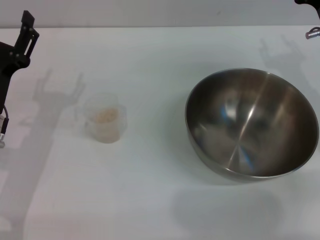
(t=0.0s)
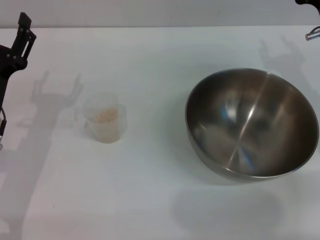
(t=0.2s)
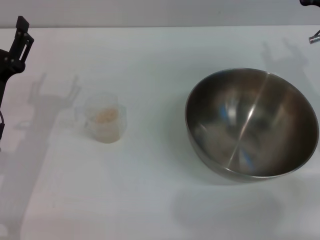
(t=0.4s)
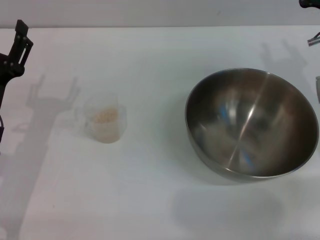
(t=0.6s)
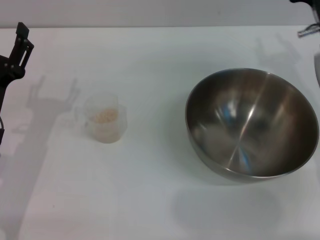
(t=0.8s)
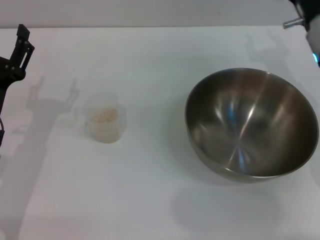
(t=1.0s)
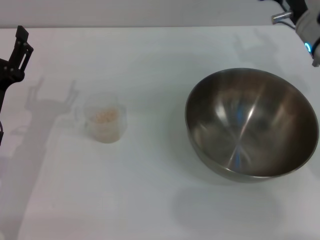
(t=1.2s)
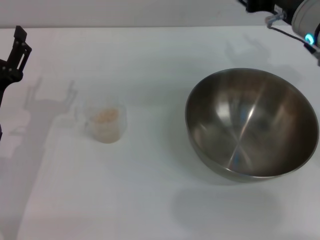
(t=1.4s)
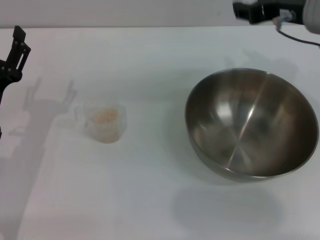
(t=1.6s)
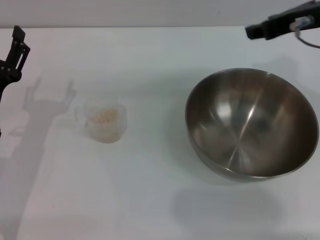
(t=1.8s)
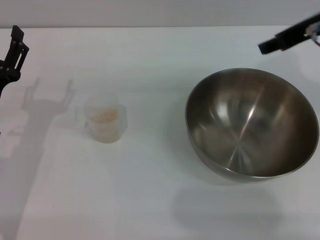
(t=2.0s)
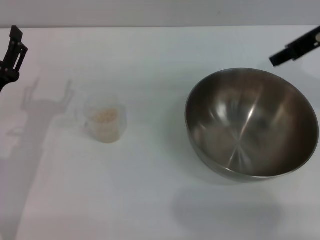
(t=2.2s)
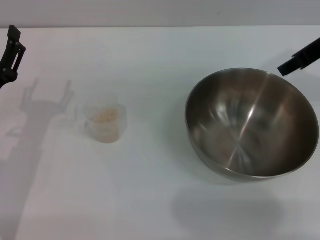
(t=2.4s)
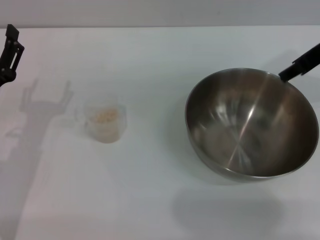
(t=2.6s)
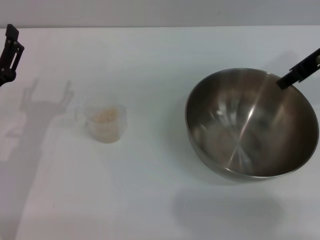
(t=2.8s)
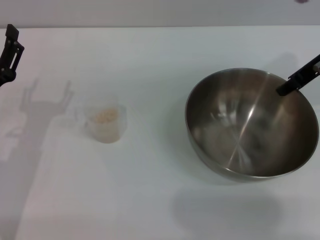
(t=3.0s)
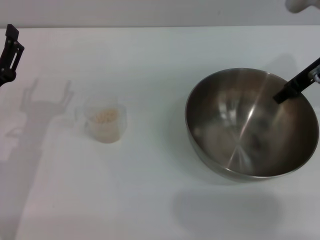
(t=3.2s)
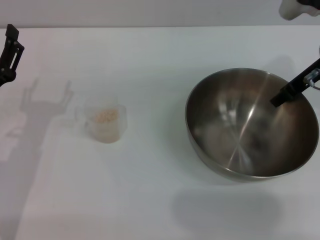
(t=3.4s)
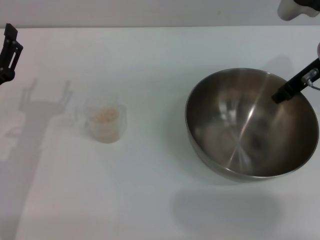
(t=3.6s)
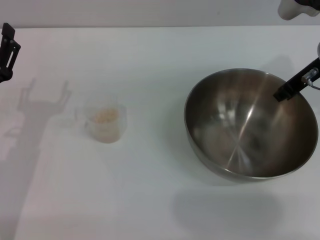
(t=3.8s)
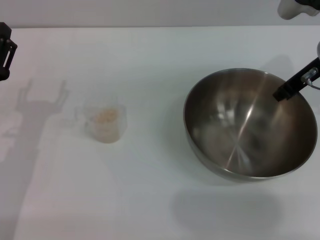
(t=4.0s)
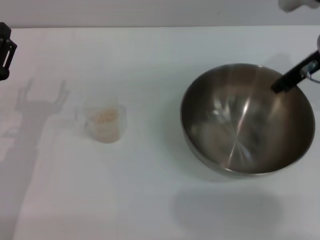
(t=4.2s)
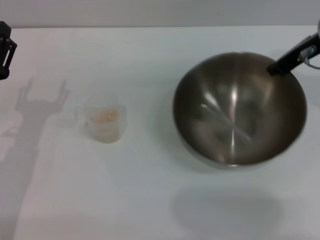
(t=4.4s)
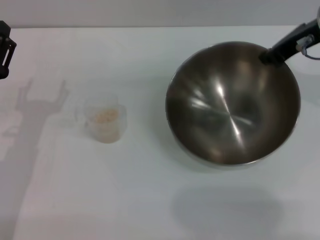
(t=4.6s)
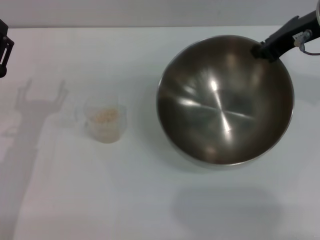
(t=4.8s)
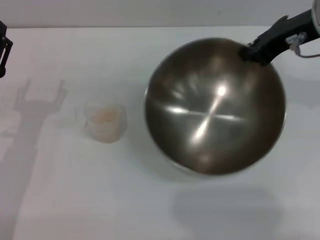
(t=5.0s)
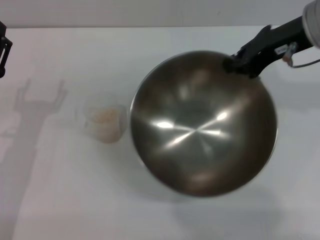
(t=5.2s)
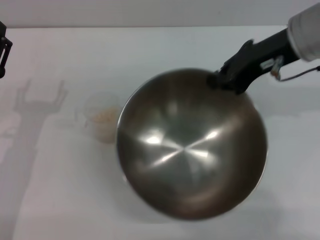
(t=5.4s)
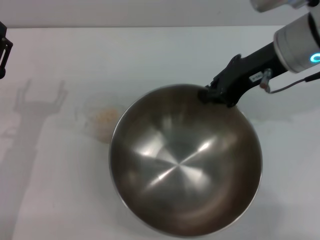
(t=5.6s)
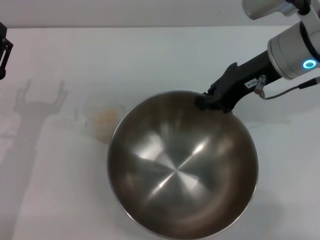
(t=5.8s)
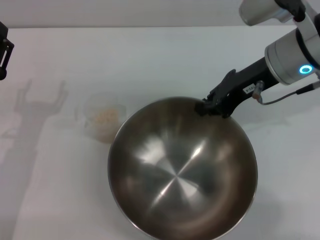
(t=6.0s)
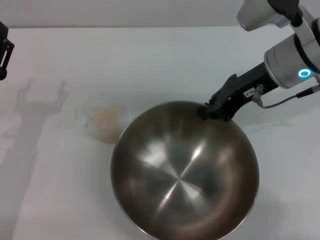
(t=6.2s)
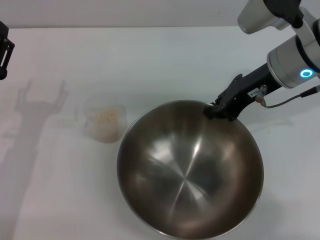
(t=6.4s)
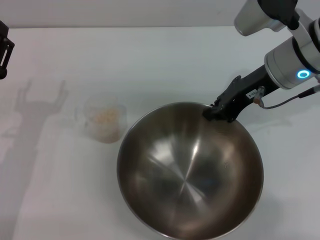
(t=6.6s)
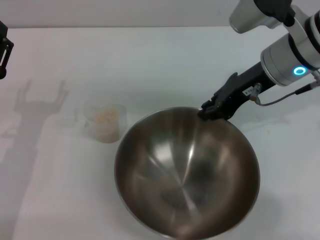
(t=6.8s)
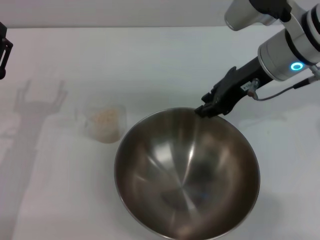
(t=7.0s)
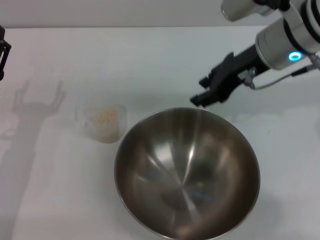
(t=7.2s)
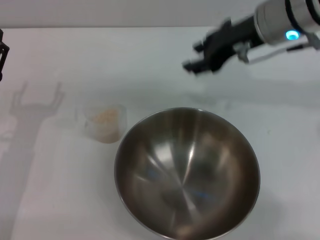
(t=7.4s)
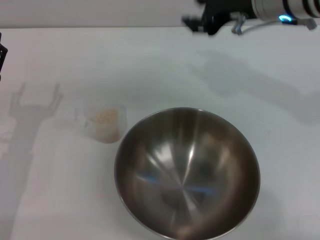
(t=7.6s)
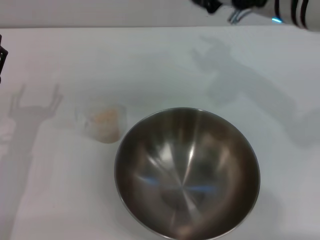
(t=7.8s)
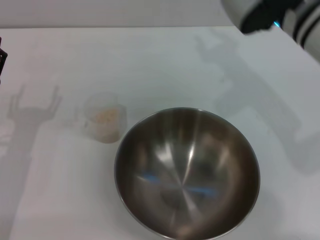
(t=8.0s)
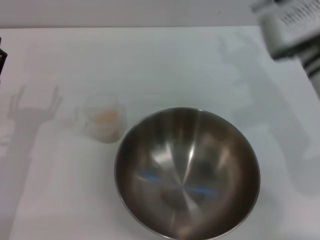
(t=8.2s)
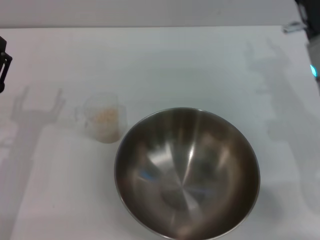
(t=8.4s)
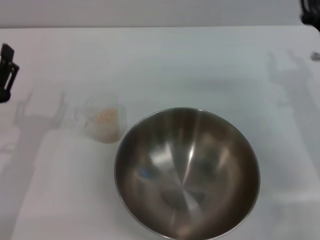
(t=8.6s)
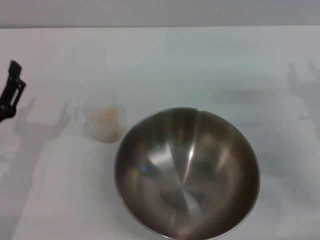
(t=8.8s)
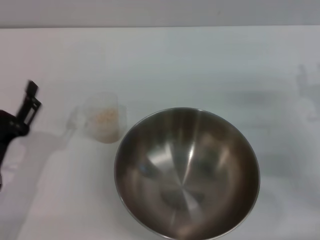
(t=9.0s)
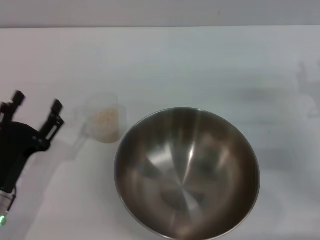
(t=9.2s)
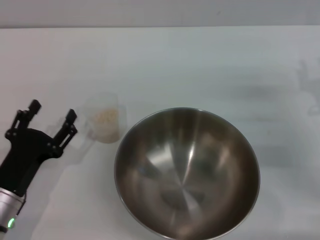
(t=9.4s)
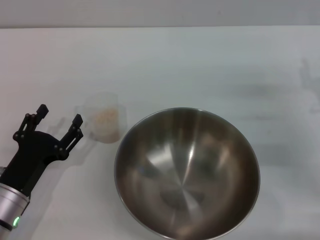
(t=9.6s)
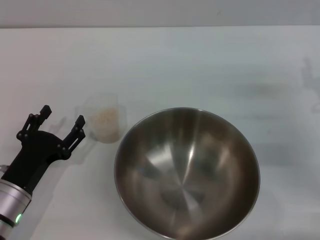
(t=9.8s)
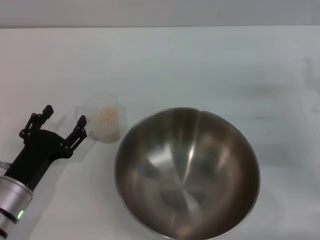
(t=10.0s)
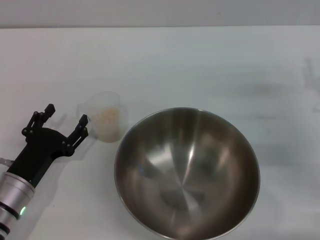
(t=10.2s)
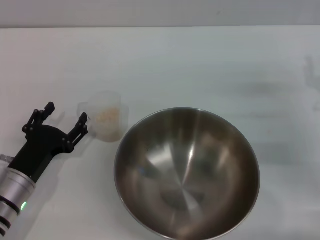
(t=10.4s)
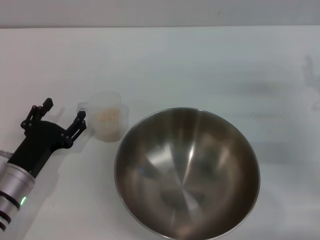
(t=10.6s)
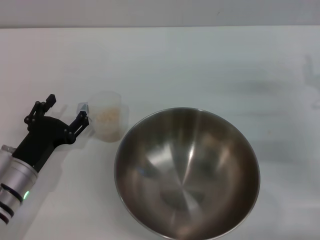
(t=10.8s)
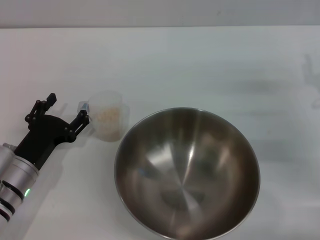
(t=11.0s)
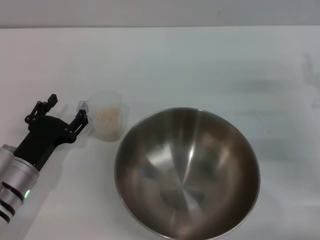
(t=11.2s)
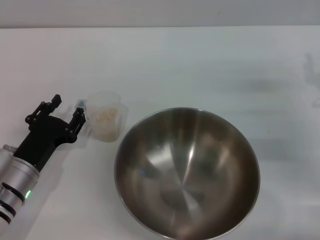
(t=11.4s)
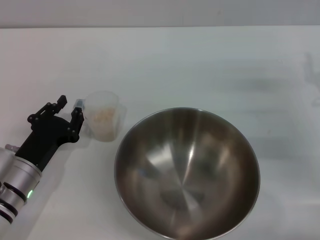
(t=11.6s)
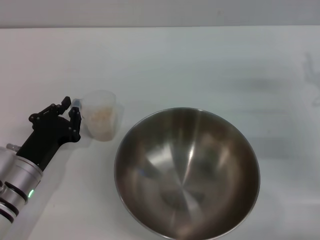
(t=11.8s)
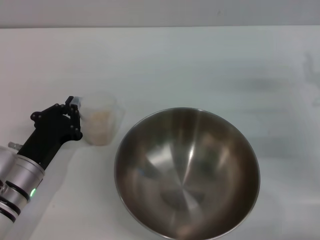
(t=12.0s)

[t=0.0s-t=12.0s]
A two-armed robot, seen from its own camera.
Task of the whole recording: Place the bowl in the middle of the table with one hand and pour the rice from the grain cup into it with the other hand.
Step, t=0.0s to t=5.6s: Pick up the bowl with the right gripper.
Step, t=5.8s to t=7.4s: Place the bowl in the center of view with the right gripper.
t=0.0s to t=1.6s: The right gripper travels upward and to the left by about 15 cm.
t=1.6s to t=3.0s: The right gripper shifts by about 5 cm.
t=3.0s to t=4.4s: The right gripper closes.
t=4.4s to t=6.0s: The right gripper shifts about 5 cm to the left.
t=6.0s to t=7.6s: The right gripper changes place by about 5 cm, and opens.
t=7.6s to t=9.0s: The right gripper shifts roughly 25 cm downward, to the right and backward. Meanwhile the left gripper moves about 5 cm.
t=10.4s to t=12.0s: The left gripper closes up.

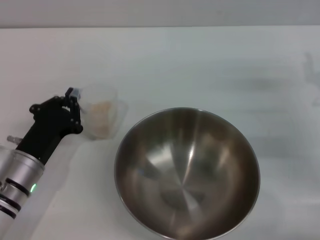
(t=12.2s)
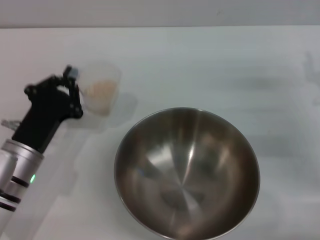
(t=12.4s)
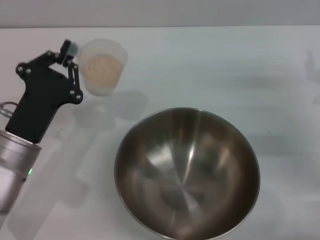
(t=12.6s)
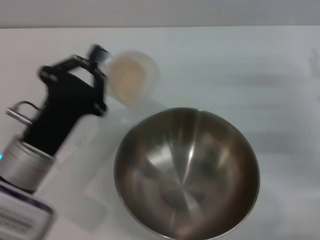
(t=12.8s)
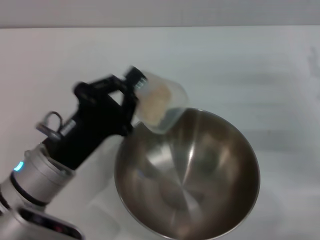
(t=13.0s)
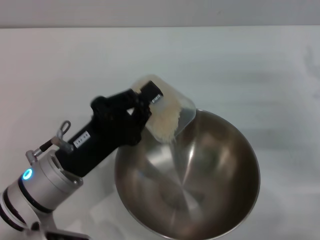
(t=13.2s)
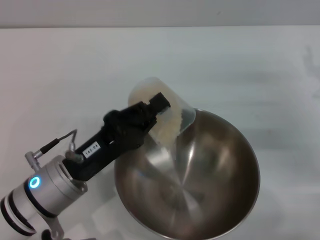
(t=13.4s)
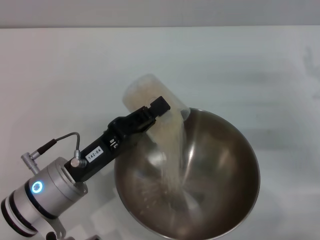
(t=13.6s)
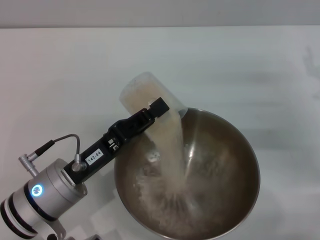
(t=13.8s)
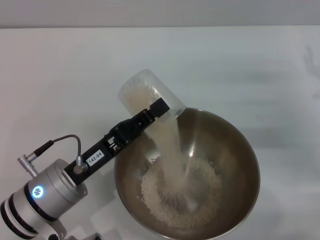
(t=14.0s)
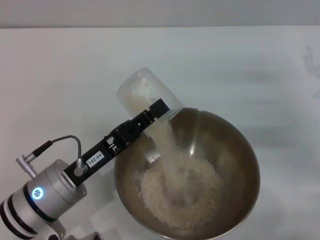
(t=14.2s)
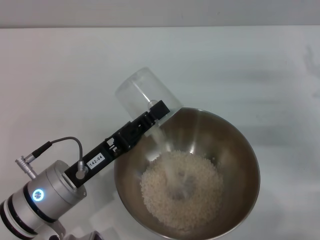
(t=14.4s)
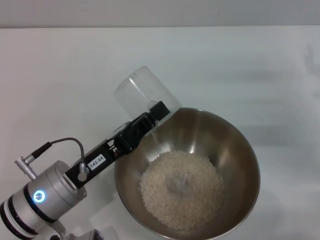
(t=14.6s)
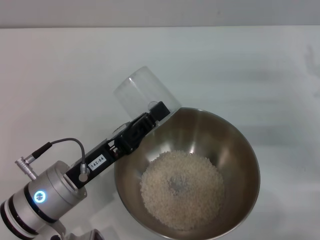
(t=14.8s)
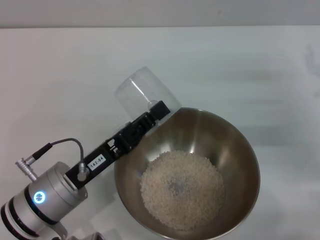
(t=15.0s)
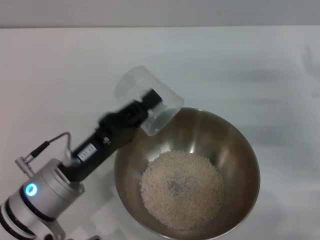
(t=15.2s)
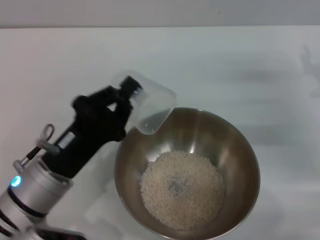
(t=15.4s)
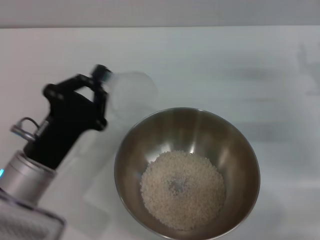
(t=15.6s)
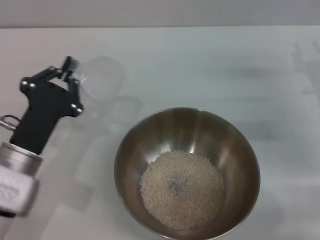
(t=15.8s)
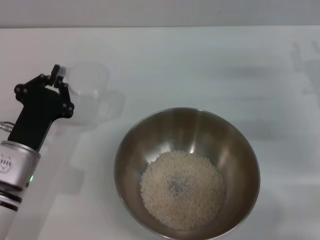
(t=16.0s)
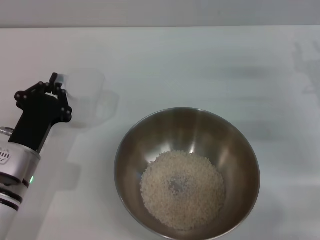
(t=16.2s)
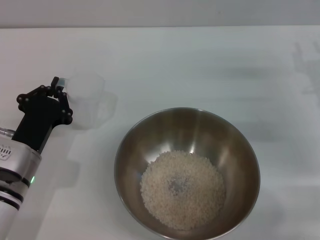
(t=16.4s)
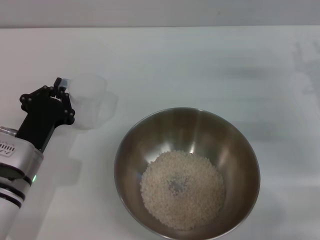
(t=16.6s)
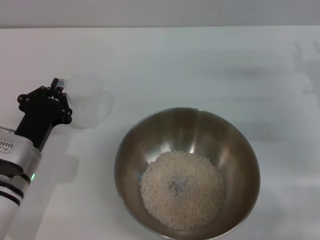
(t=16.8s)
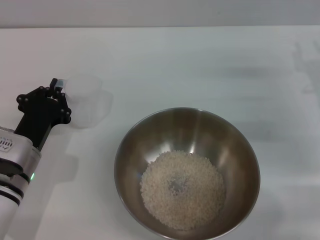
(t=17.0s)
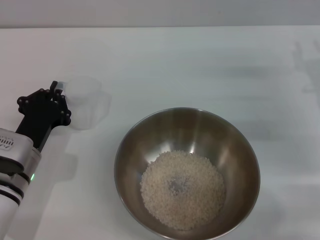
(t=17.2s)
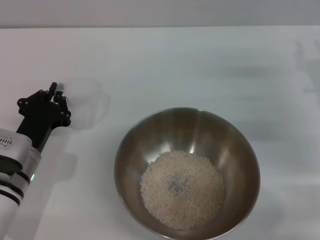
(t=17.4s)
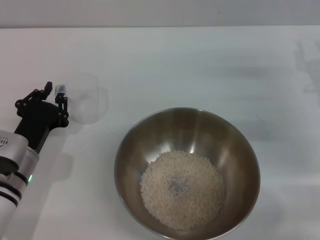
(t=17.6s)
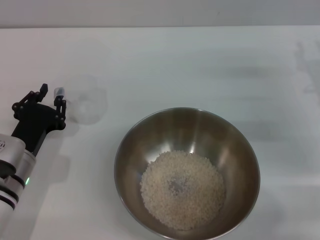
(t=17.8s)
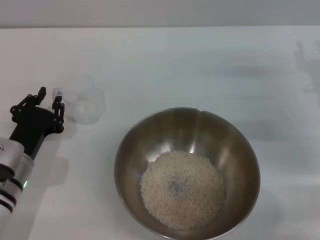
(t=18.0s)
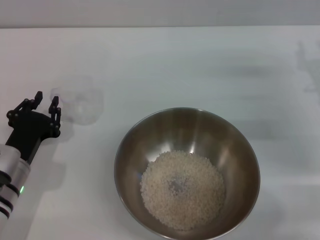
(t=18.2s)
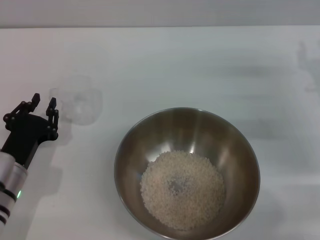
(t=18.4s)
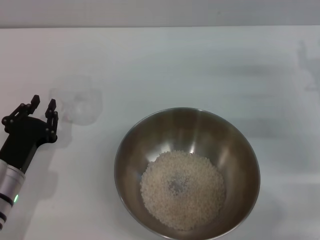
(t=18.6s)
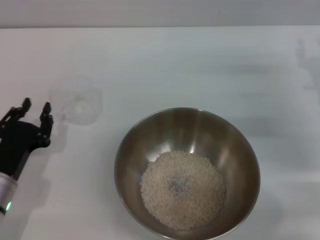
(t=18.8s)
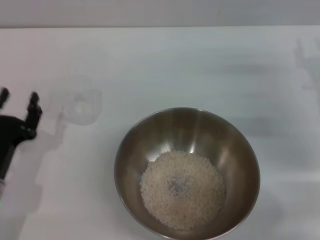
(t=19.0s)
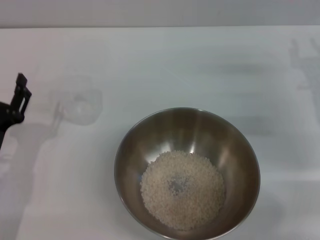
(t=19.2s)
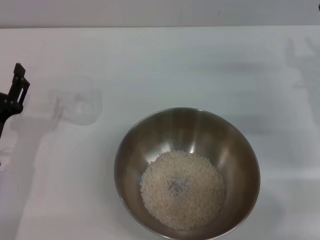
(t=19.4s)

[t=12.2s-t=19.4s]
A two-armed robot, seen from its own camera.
Task of the whole recording: Place the bowl in the middle of the table with one hand and pour the rice from the grain cup into it with the other hand.
Step, t=12.8s to t=14.8s: Pour the rice from the cup into the bowl with the left gripper.
Step, t=15.0s to t=18.0s: Place the cup on the table with the left gripper.
t=12.2s to t=13.6s: The left gripper is displaced to the right by roughly 5 cm.
t=13.6s to t=15.0s: The grippers stay close to where they were, moving slightly.
t=15.0s to t=16.6s: The left gripper is displaced to the left by roughly 5 cm.
t=16.6s to t=18.0s: The grippers make only small movements.
t=18.0s to t=19.4s: The left gripper opens.
